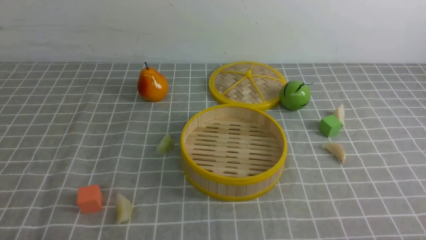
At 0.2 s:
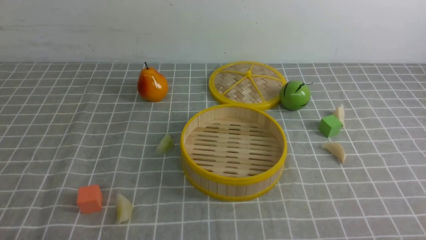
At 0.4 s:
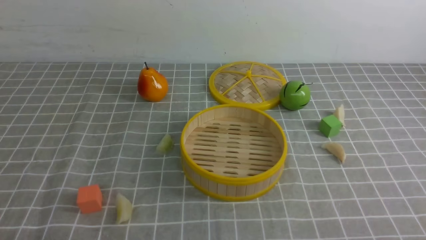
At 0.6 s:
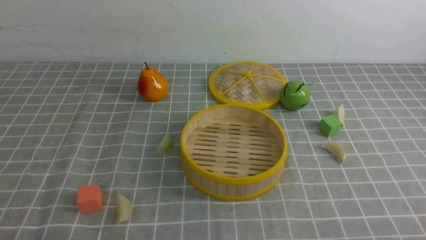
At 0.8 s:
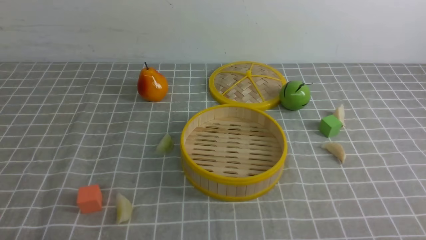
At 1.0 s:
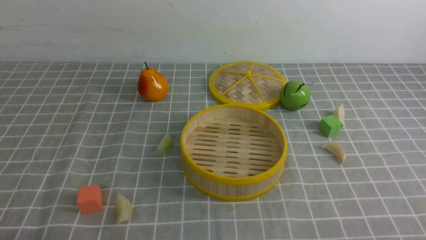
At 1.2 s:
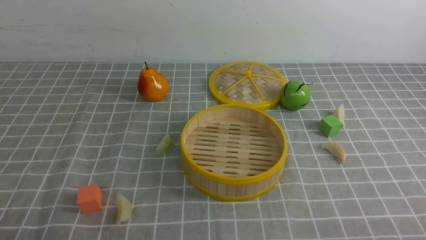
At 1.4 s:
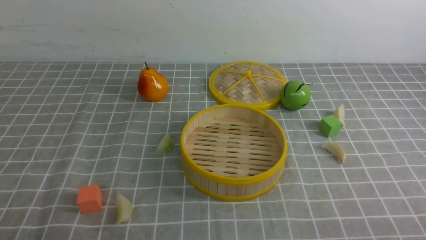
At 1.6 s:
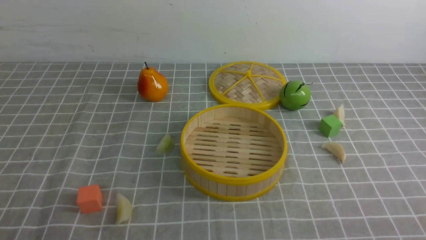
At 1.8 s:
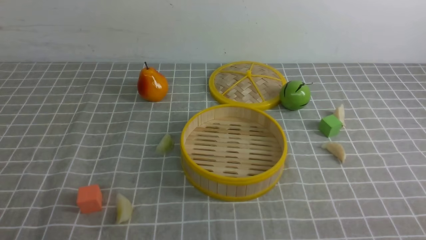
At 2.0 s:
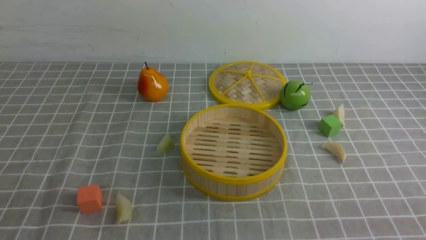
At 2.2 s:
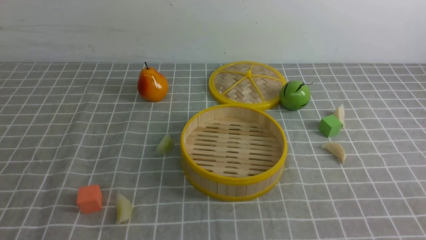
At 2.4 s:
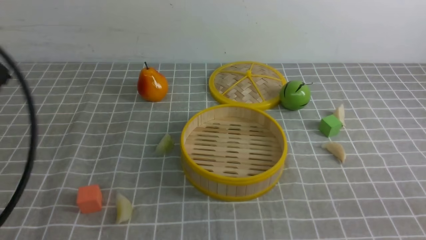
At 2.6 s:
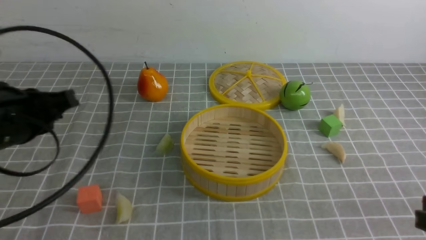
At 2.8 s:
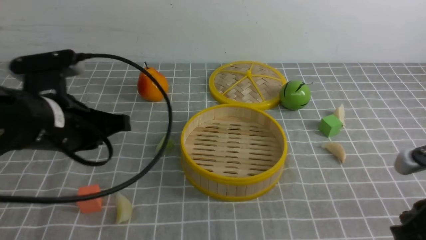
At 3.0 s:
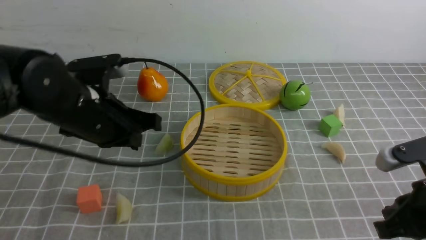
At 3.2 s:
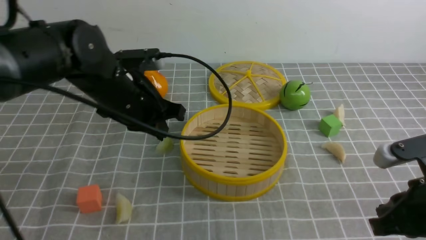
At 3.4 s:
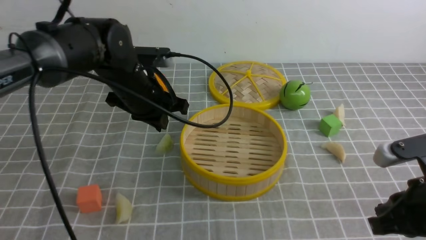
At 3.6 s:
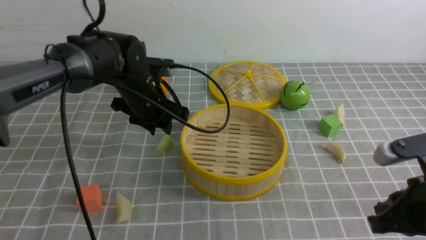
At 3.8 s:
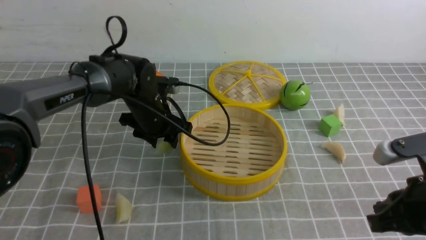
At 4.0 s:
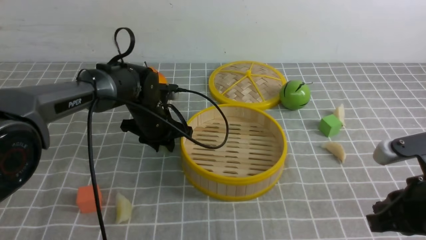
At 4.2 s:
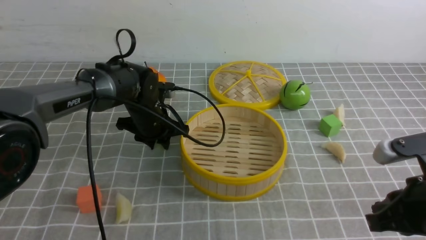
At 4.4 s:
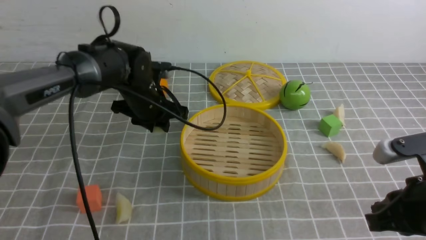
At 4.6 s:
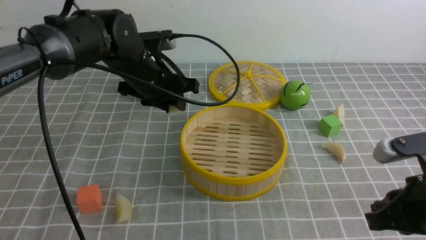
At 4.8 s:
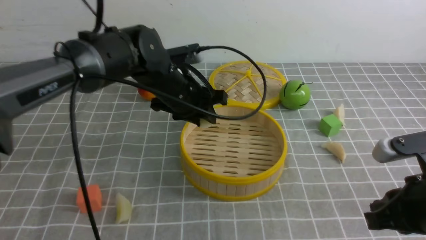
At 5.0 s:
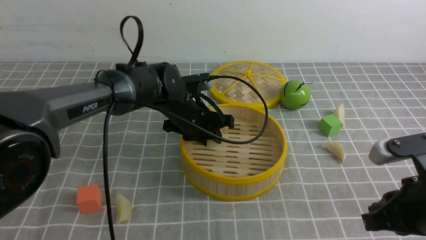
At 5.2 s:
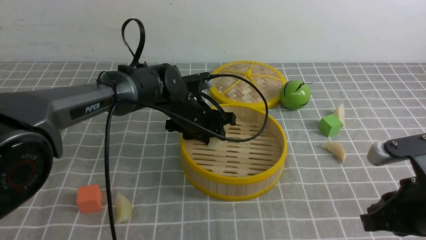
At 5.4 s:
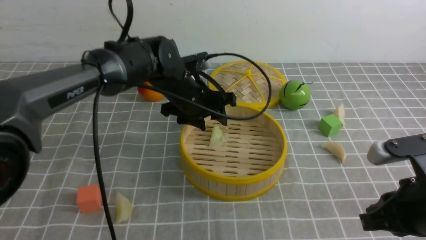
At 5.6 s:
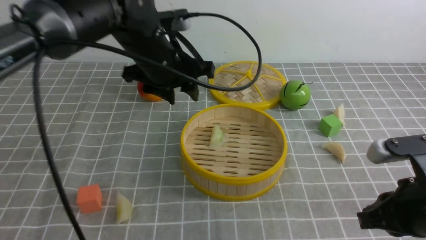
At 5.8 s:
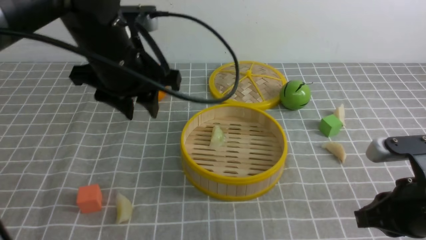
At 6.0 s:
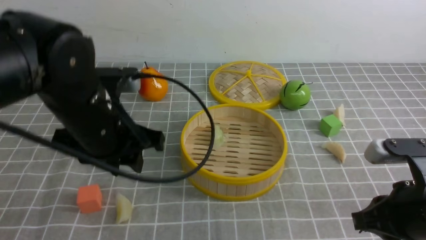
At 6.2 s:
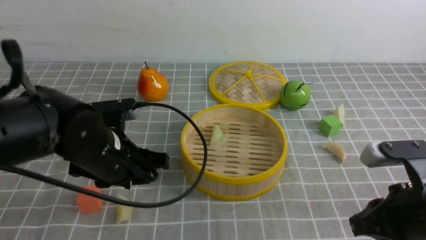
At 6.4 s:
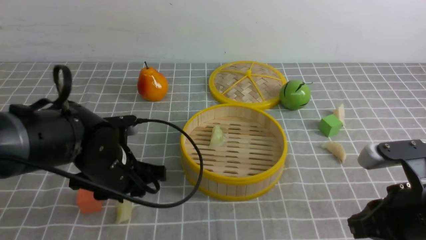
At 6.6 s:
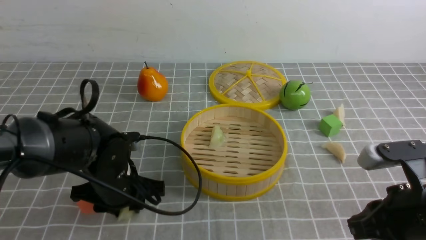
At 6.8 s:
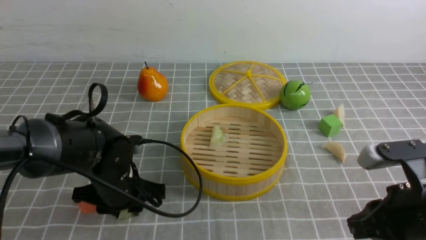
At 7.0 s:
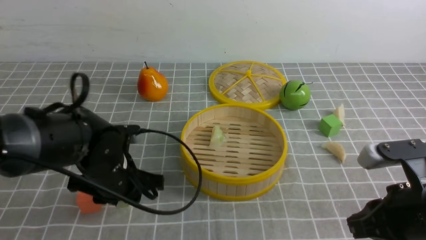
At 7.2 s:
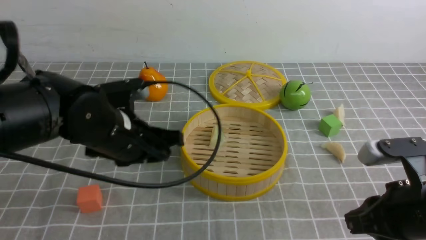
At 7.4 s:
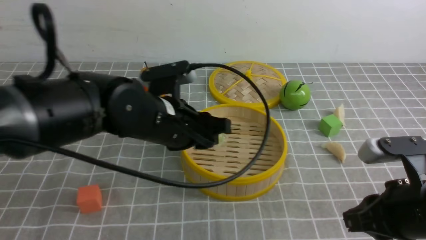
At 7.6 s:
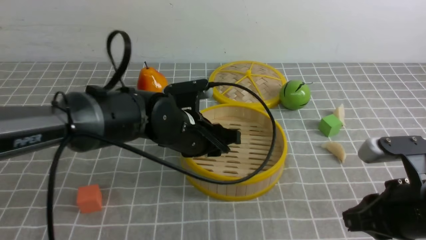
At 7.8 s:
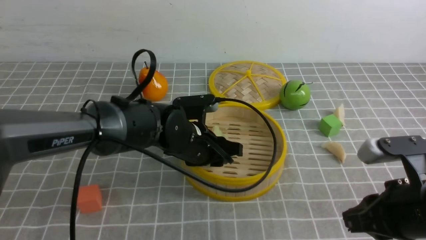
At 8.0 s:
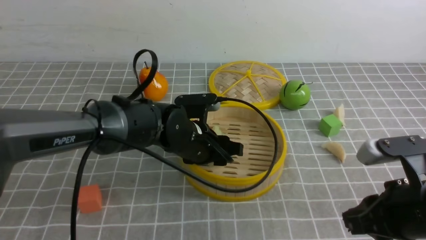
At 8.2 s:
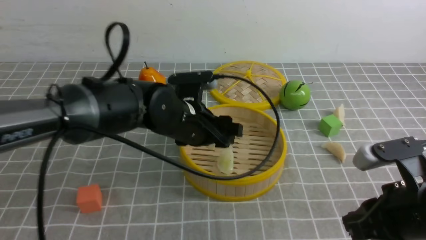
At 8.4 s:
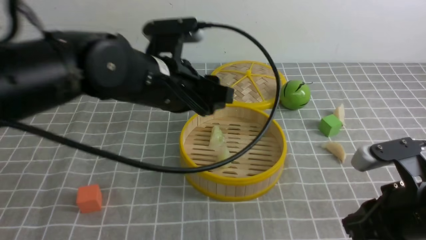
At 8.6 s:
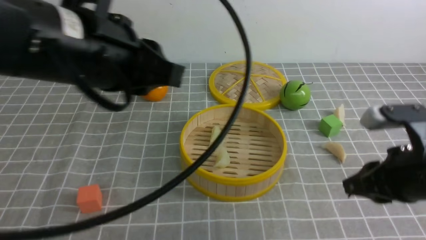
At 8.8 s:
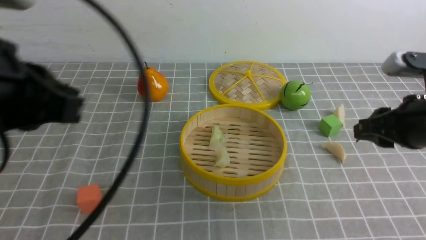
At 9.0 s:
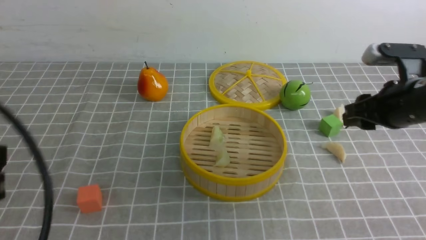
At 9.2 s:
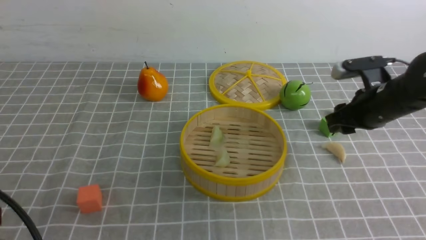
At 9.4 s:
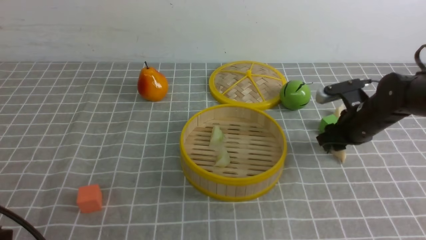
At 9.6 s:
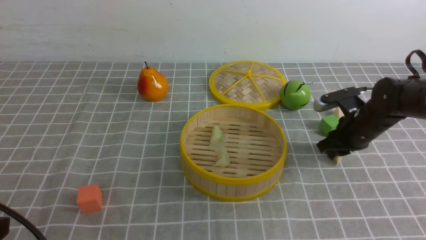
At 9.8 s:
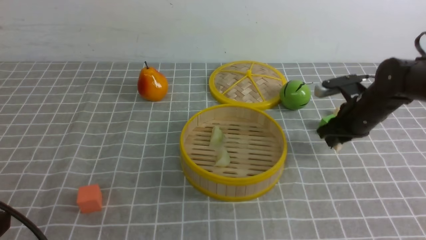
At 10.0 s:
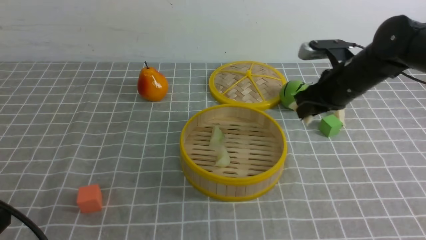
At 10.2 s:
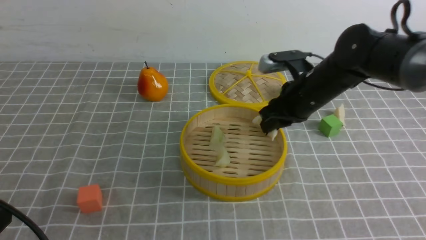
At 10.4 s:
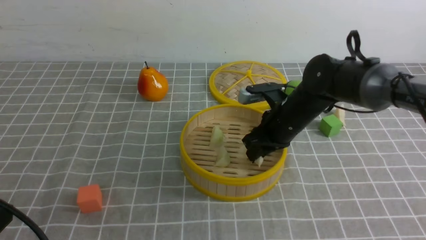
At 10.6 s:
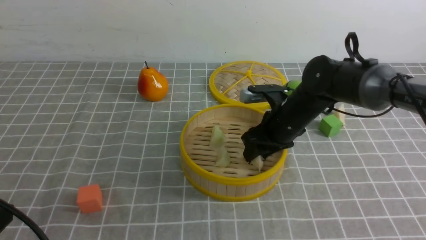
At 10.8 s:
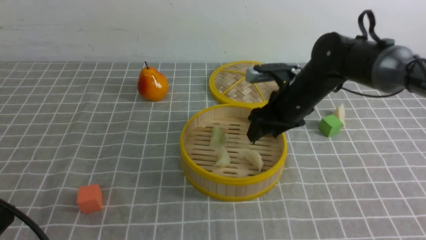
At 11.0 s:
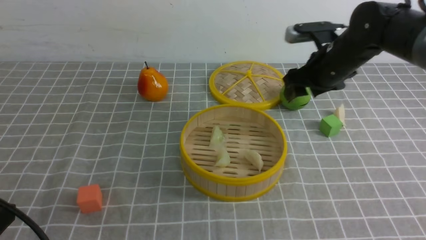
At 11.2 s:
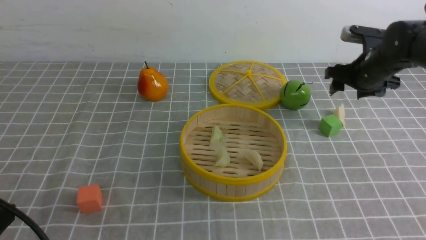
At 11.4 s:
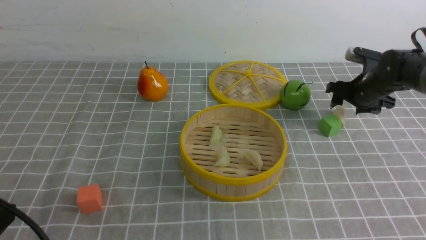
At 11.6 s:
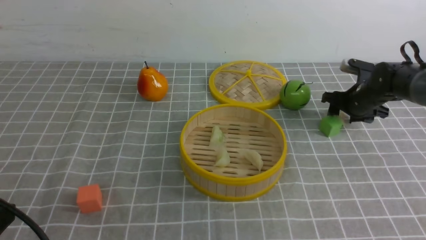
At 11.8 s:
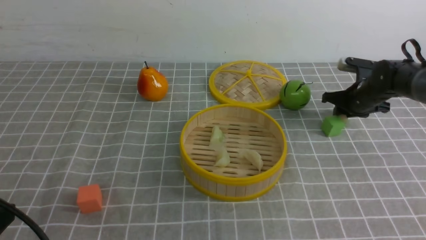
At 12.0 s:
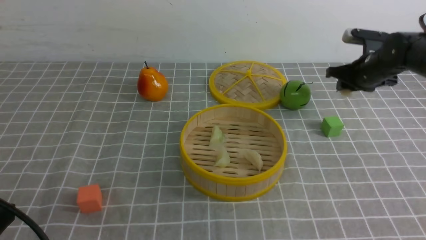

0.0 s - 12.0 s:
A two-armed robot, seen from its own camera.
Task of the whole recording: put the dumplings into the steamer on the table with the grey tablecloth.
Step, 0.0 s - 4.2 s: use the left arm to grab a dumpling.
Step, 4.4 s - 5.2 s: use the left arm to put the dumpling into the steamer.
Step, 5.4 s - 7.0 s: use the left arm to grab a dumpling.
Step, 7.2 s - 8.2 s: use the left arm to put the dumpling into the steamer.
Step, 8.4 s - 9.6 s: use the right arm to grab a dumpling.
Step, 9.8 s - 10.6 s: use the right arm to put the dumpling into the steamer.
Step, 10.8 s - 11.8 s: use the right arm to grab a dumpling.
1.6 s - 3.0 s: The right gripper travels forward by approximately 15 cm, and closes its fingers. Meanwhile the left gripper moves forward and to the right, roughly 30 cm.
3.0 s - 4.4 s: The left gripper heads forward and downward, covering roughly 15 cm, and opens its fingers.
4.4 s - 6.0 s: The left gripper travels backward and upward by about 15 cm.
6.0 s - 7.6 s: The left gripper travels to the right and downward by approximately 10 cm.
7.6 s - 9.0 s: The left gripper heads backward, to the left and upward, covering about 30 cm, and closes its fingers, while the right gripper goes about 15 cm forward, and opens.
9.0 s - 10.4 s: The left gripper travels downward by about 10 cm. Meanwhile the right gripper travels to the left, forward and downward by some 15 cm.
10.4 s - 12.0 s: The right gripper shifts approximately 15 cm to the right and forward, and opens and closes again.

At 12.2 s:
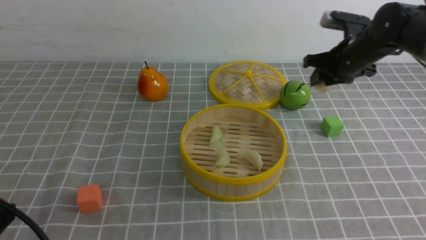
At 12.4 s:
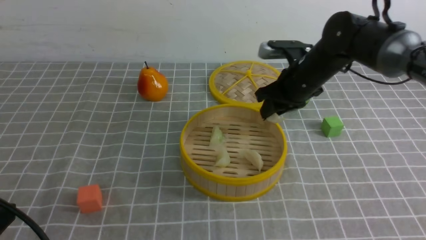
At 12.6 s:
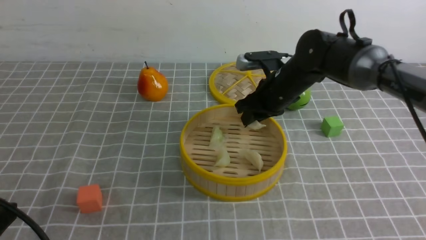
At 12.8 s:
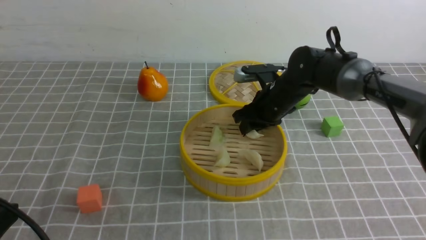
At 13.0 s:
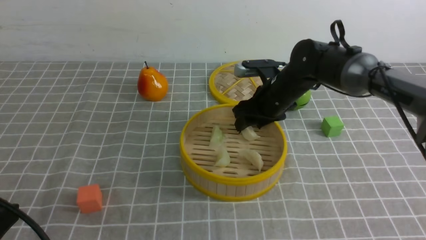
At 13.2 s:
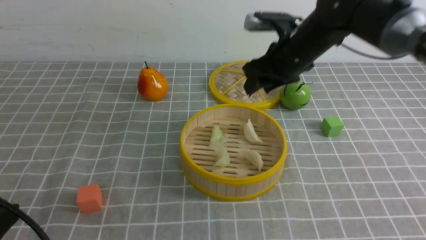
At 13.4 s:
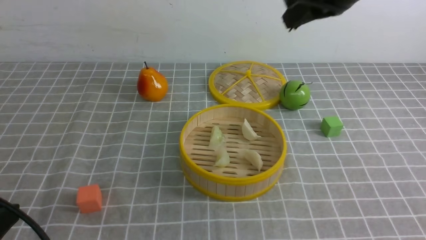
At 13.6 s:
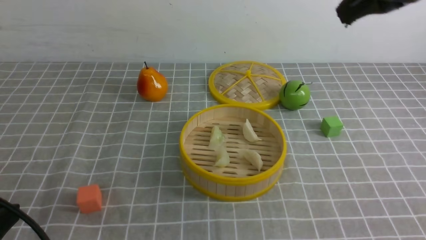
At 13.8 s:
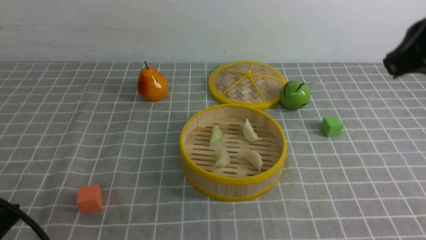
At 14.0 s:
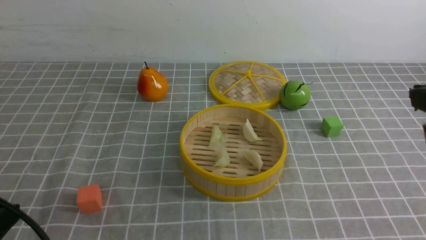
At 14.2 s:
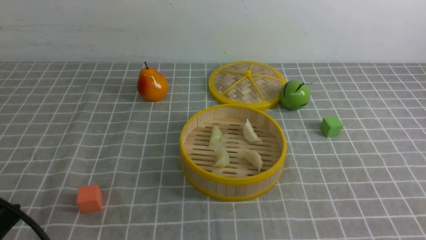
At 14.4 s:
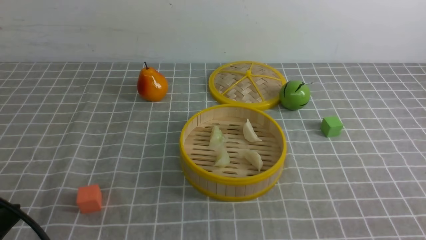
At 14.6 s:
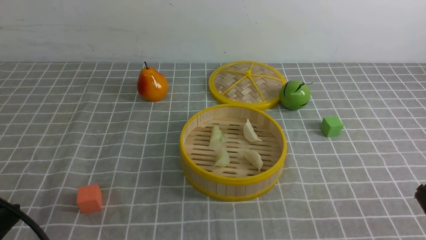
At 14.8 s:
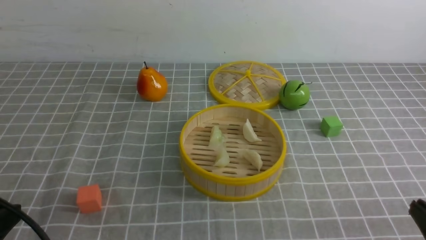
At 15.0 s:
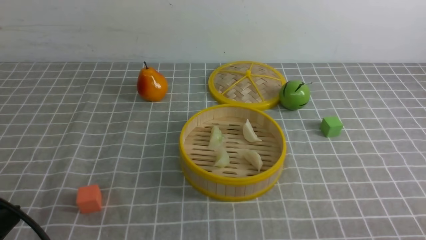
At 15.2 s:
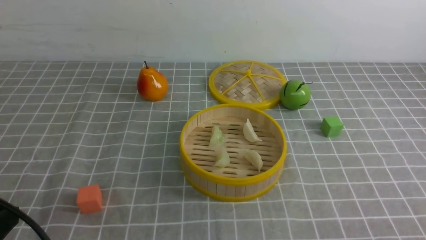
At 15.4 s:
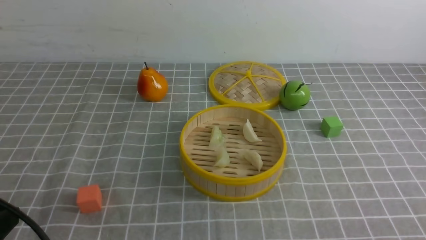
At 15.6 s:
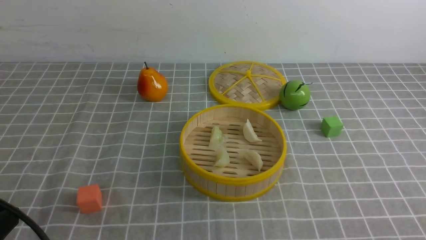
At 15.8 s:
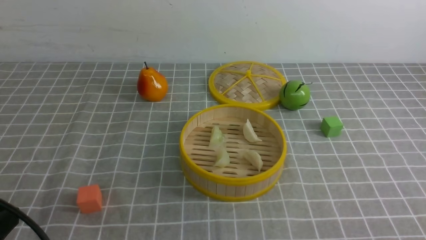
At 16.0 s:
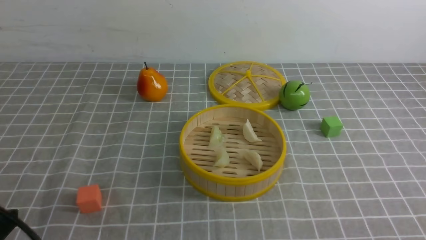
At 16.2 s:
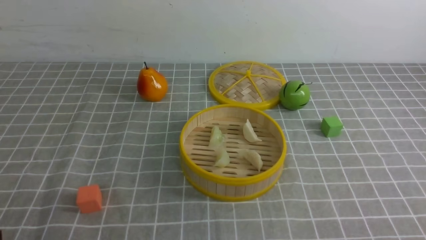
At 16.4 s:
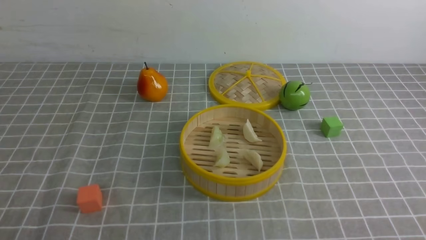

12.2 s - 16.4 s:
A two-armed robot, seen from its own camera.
Task of the whole recording: put the dumplings into the steamer on the table with the grey tablecloth.
Step, 12.2 s - 13.0 s: use the right arm to put the dumpling into the steamer.
12.2 s - 13.6 s: The right gripper moves upward and backward, roughly 30 cm, and closes up.
13.6 s - 15.0 s: The right gripper shifts about 35 cm downward and backward.
15.0 s - 16.4 s: The left gripper shifts by about 5 cm.
